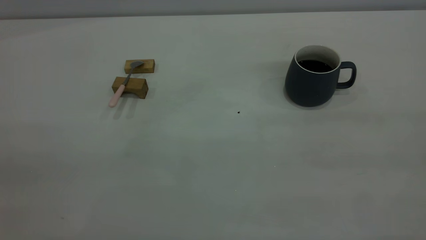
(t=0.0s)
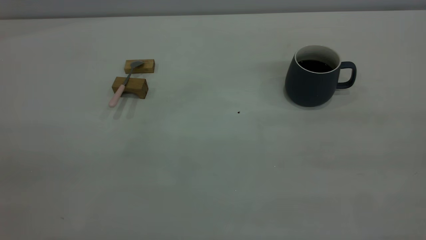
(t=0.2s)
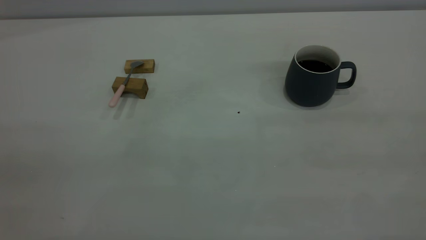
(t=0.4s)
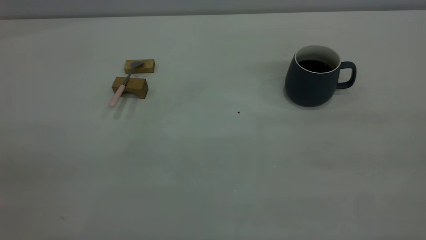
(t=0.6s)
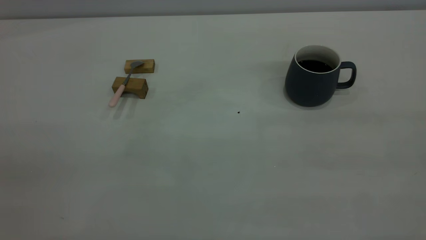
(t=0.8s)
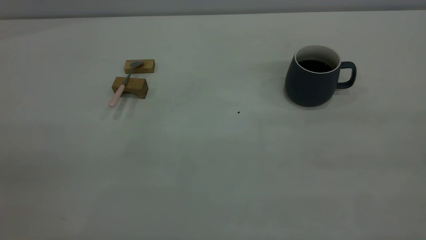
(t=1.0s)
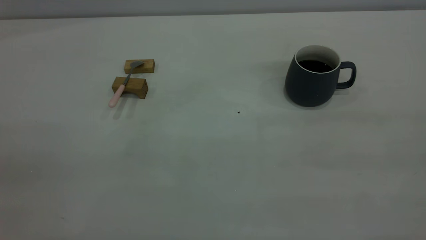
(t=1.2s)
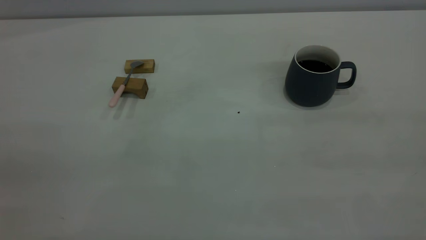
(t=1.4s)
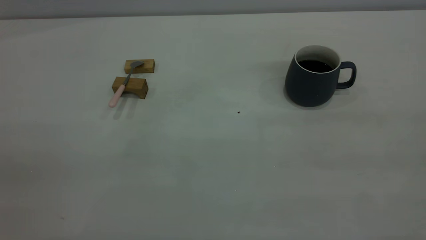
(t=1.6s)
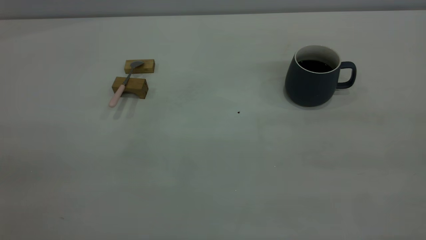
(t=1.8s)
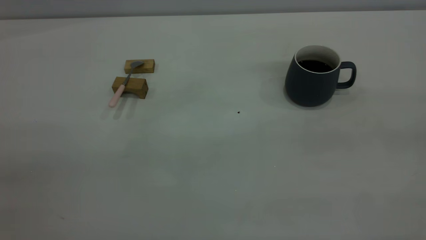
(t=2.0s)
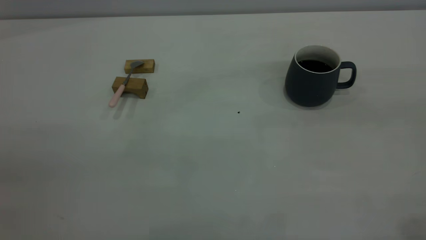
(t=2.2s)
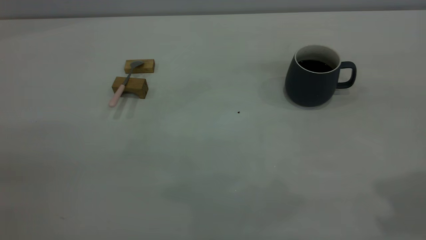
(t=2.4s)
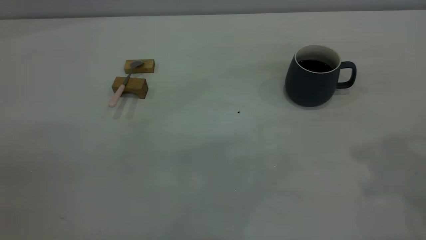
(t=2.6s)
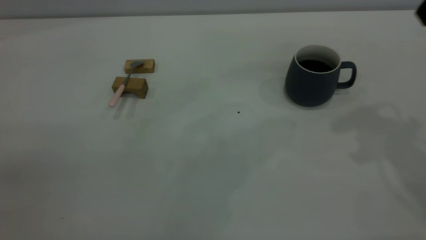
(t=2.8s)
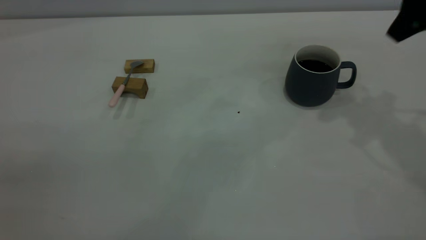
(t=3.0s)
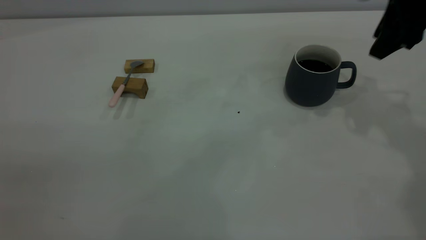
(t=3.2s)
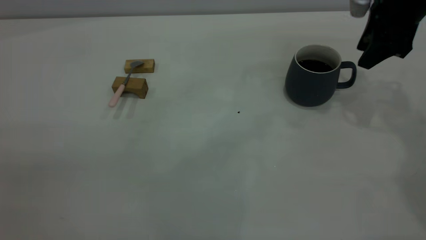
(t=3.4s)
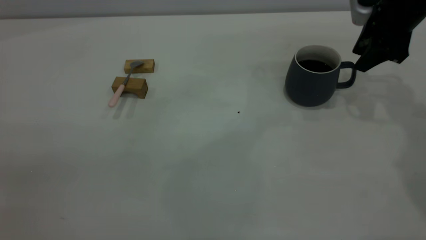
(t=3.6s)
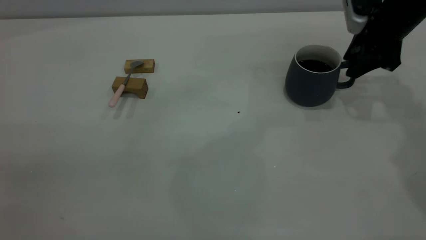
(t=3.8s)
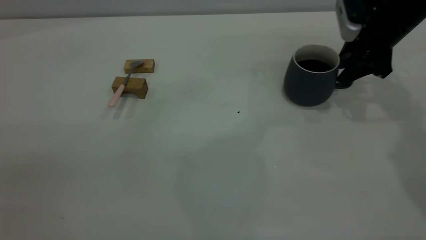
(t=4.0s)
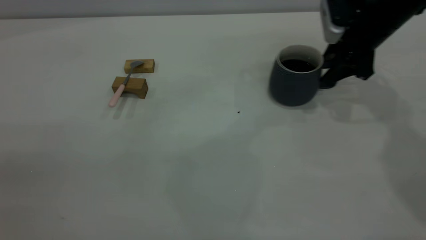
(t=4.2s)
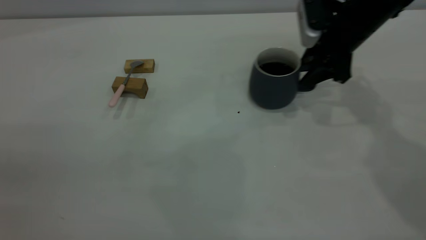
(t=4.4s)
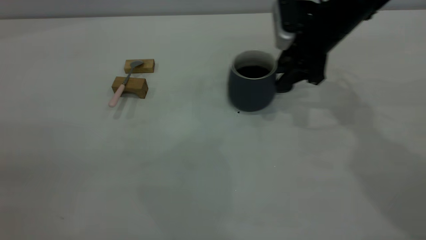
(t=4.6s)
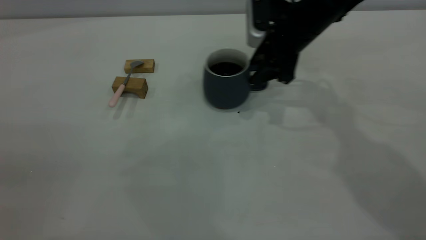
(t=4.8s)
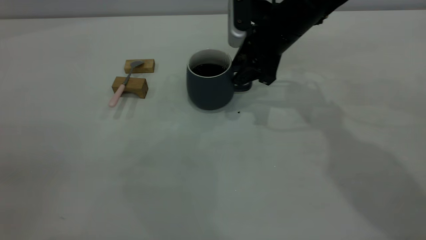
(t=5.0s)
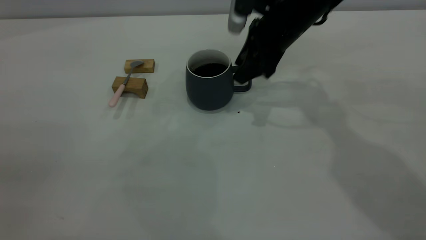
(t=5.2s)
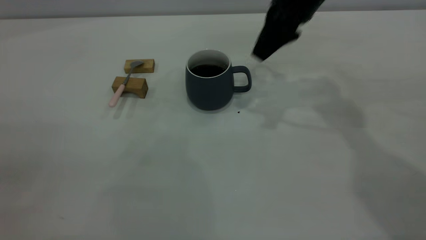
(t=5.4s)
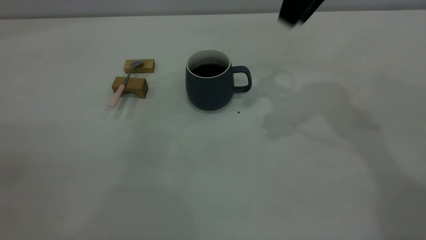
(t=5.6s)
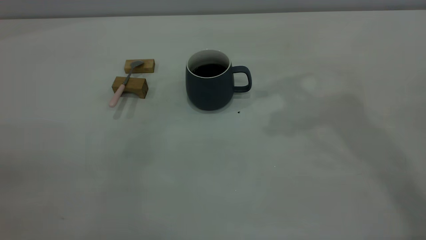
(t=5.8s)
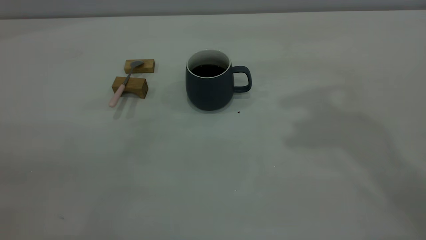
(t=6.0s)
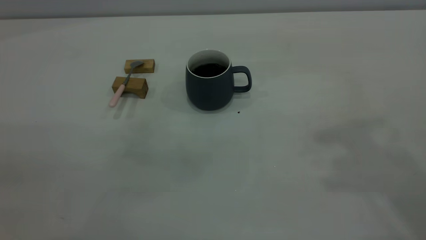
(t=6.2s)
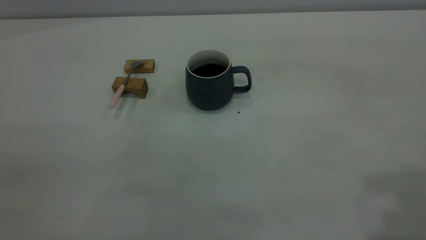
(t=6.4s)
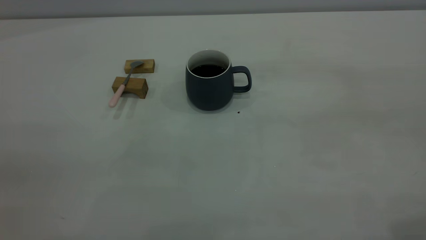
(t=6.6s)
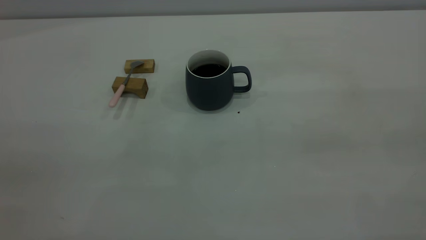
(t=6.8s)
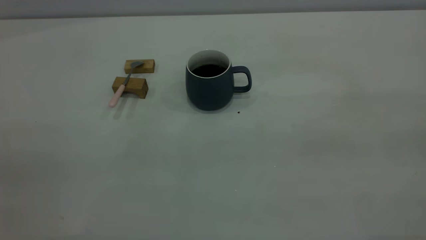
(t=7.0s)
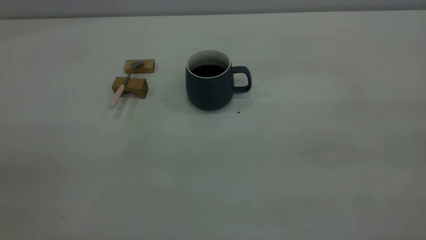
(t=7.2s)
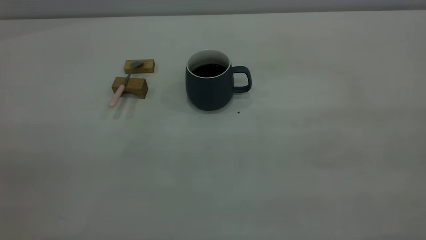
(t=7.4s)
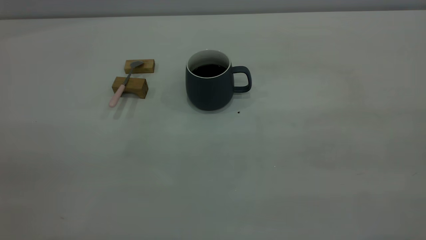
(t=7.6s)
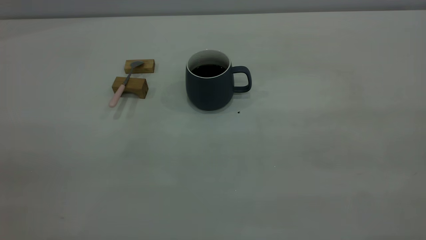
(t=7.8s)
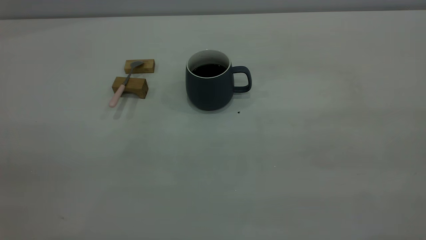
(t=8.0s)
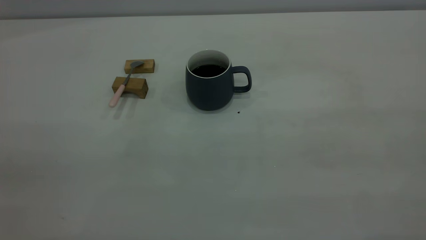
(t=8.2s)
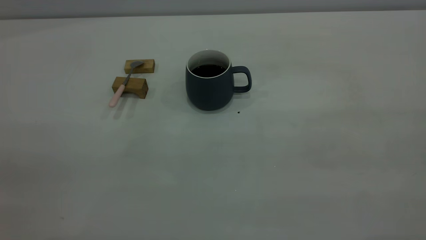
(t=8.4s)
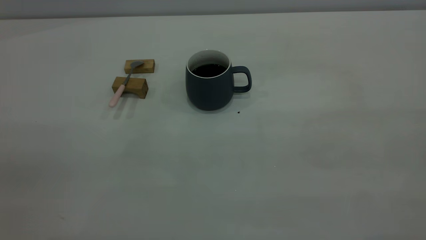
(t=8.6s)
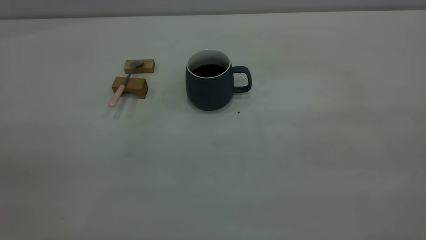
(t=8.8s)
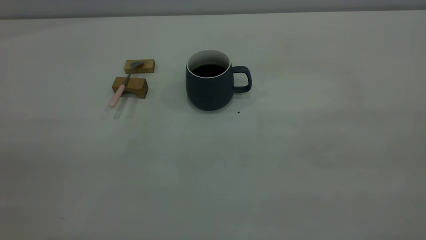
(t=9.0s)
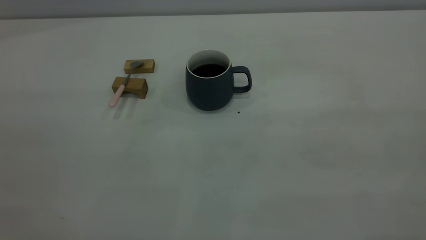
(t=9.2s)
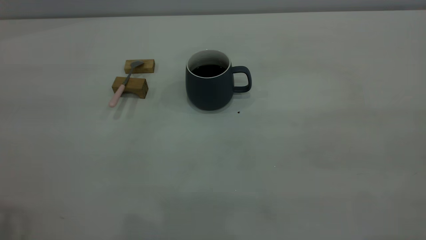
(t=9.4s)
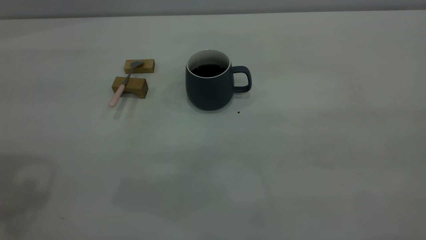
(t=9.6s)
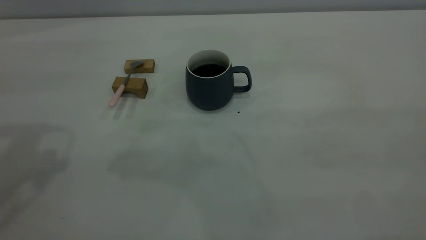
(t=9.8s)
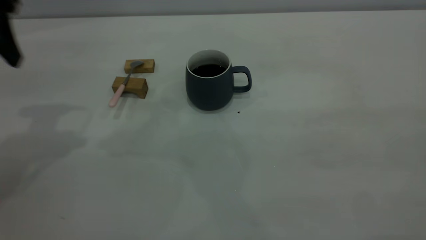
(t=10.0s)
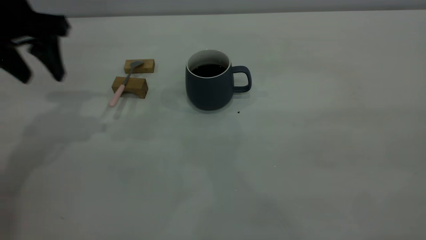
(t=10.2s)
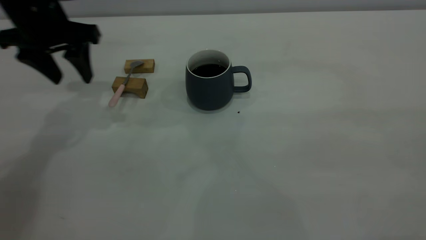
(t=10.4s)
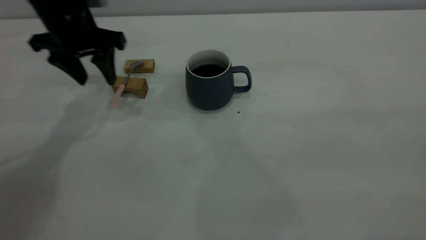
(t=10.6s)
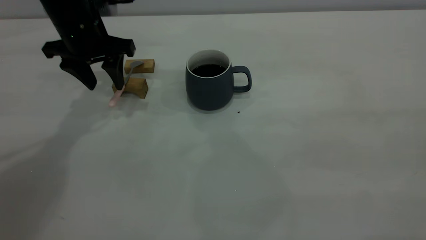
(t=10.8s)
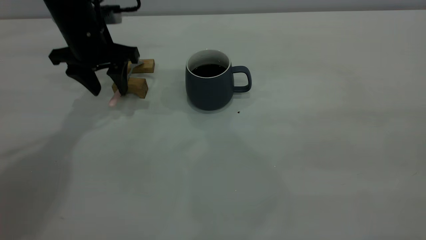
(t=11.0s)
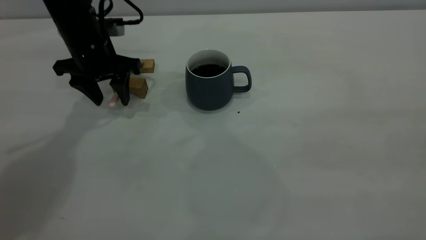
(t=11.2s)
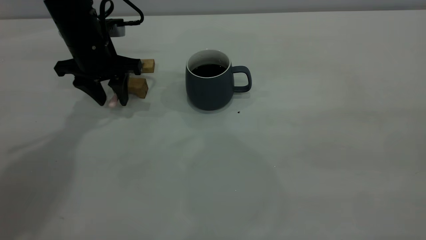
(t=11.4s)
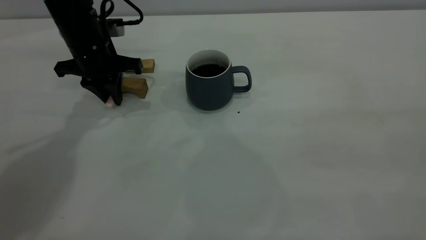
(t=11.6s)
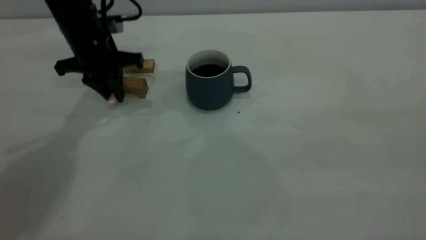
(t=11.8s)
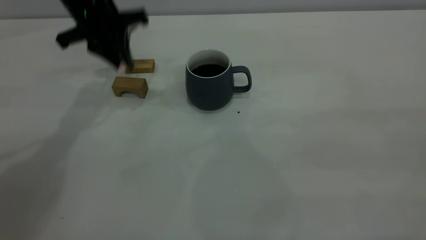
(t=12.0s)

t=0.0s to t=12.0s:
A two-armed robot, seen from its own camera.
Step, t=0.0s to t=5.2s: Move the cup with coffee to the center of view.
Step, t=5.6s to t=11.8s: Pick up the spoon.
t=0.0s to t=1.6s: Neither gripper changes place.
t=1.6s to t=3.0s: The right gripper shifts some 35 cm forward.
t=3.0s to t=4.4s: The right gripper shifts approximately 15 cm downward, forward and to the left.
t=4.4s to t=6.0s: The right gripper shifts approximately 35 cm upward.
t=9.0s to t=10.4s: The left gripper heads forward and downward, covering some 40 cm.
t=10.4s to t=12.0s: The left gripper travels downward and back again, approximately 10 cm each way, and closes up.

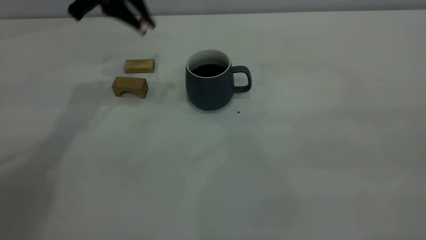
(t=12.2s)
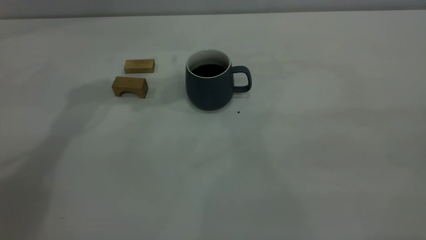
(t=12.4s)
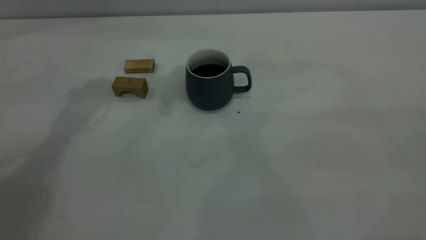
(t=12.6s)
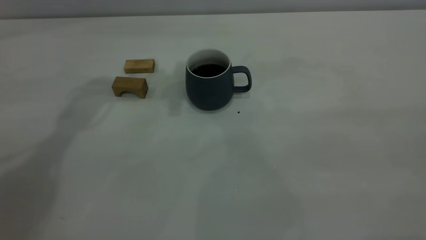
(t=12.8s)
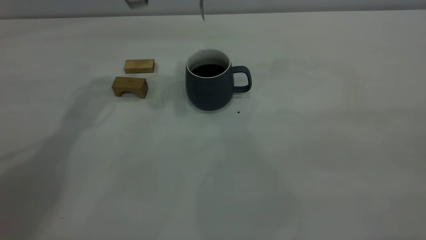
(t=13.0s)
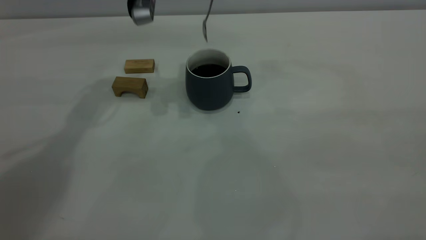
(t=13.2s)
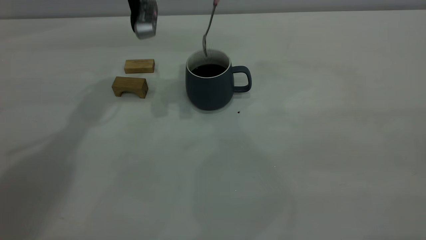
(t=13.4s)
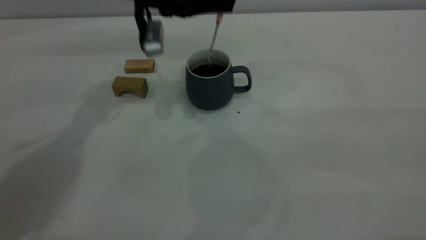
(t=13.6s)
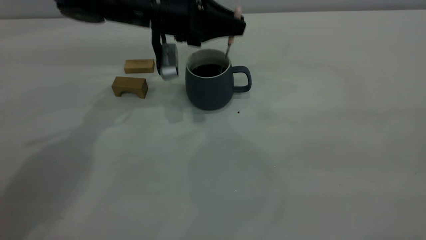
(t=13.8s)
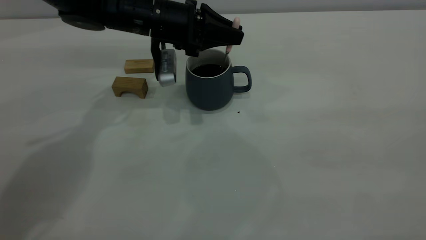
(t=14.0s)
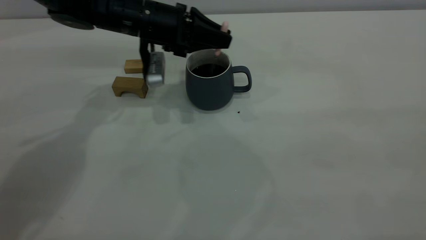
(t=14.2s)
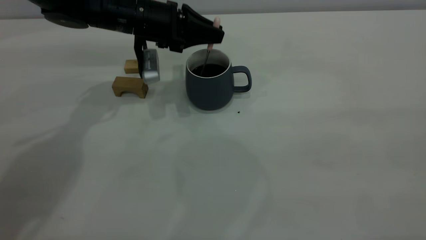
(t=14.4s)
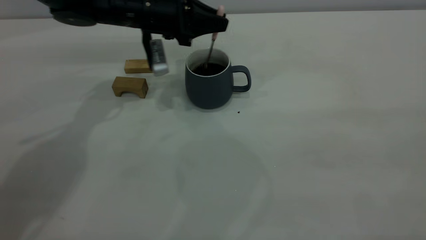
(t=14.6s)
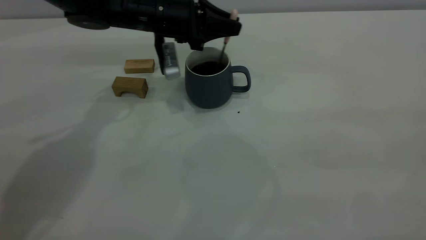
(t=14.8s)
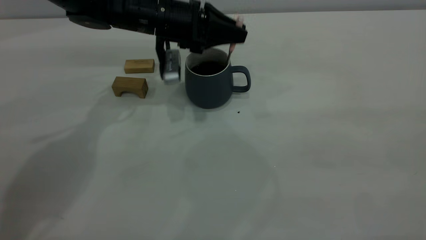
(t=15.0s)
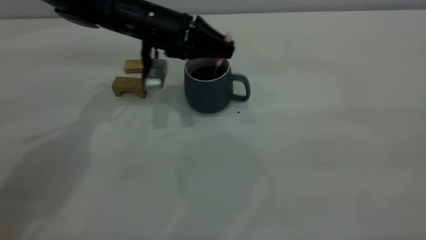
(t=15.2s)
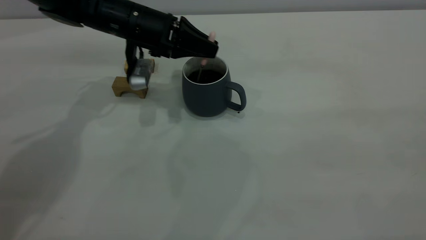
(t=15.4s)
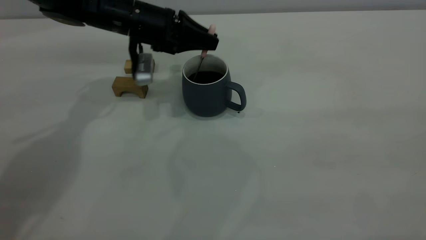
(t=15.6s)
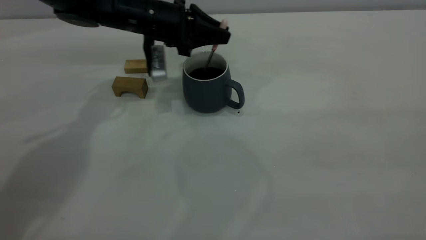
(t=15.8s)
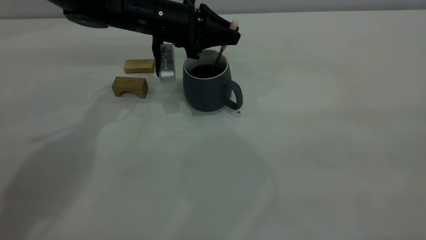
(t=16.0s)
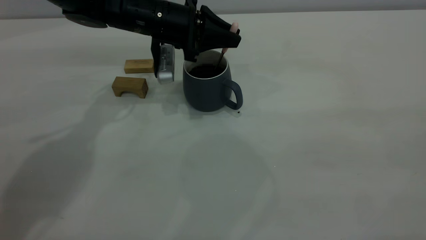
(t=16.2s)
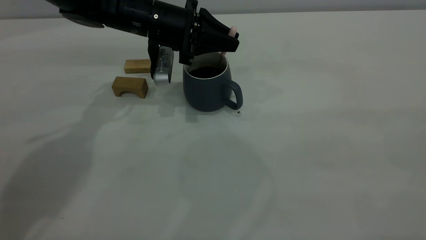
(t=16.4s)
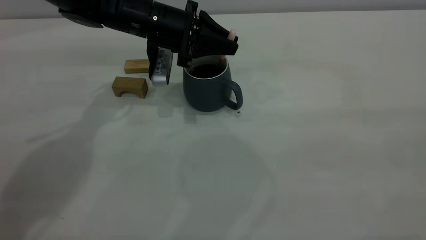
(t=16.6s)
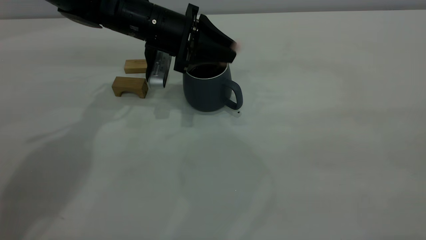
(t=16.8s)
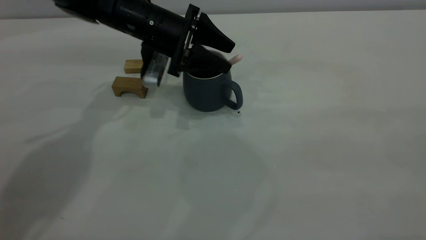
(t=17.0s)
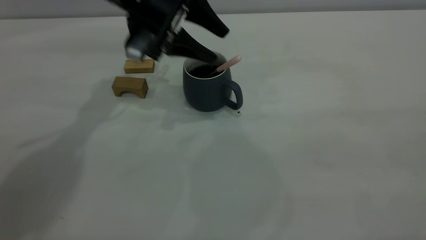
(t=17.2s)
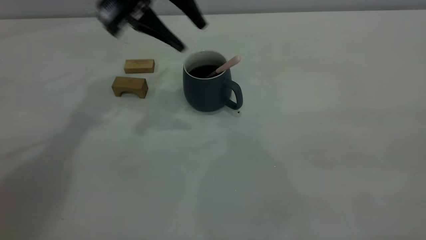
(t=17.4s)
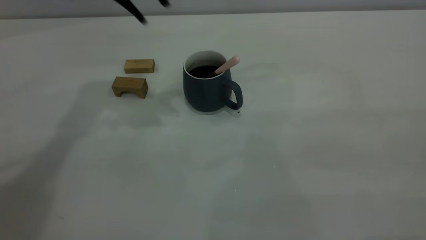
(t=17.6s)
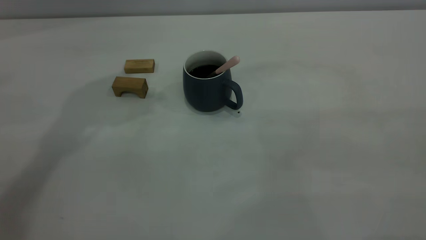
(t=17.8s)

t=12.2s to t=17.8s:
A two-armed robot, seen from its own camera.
Step, t=12.2s to t=17.4s: Stir the coffee in the cup.
t=12.2s to t=13.6s: The left gripper shifts some 10 cm downward and to the right.
t=13.6s to t=16.4s: The grippers stay close to where they were, moving slightly.
t=16.4s to t=17.8s: The left gripper goes approximately 25 cm upward, and opens.
